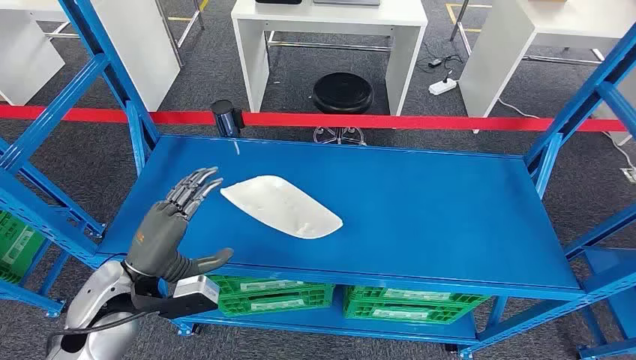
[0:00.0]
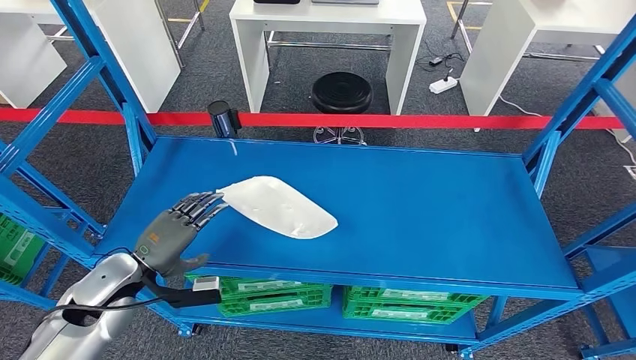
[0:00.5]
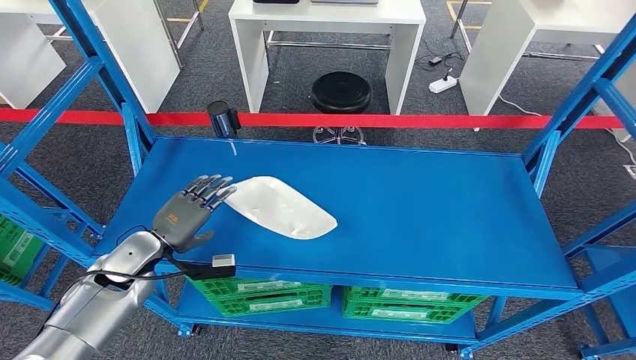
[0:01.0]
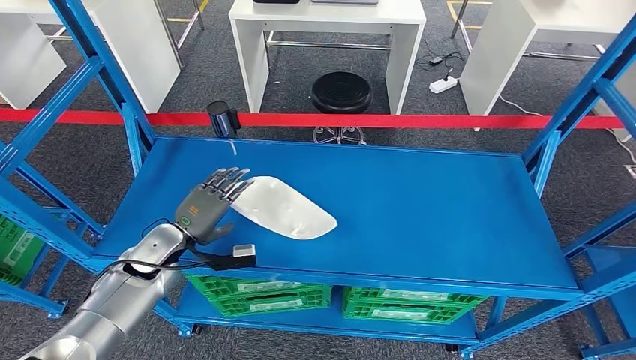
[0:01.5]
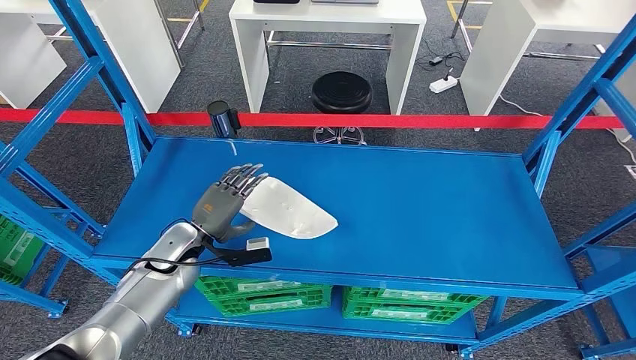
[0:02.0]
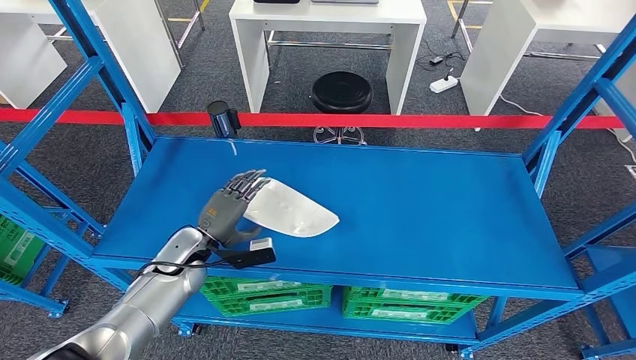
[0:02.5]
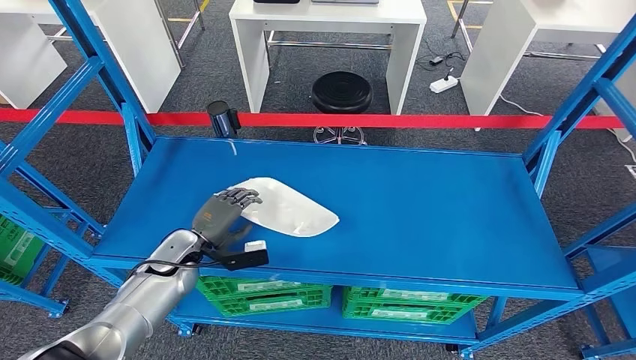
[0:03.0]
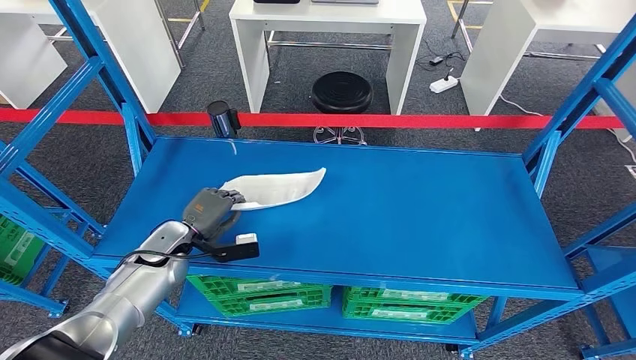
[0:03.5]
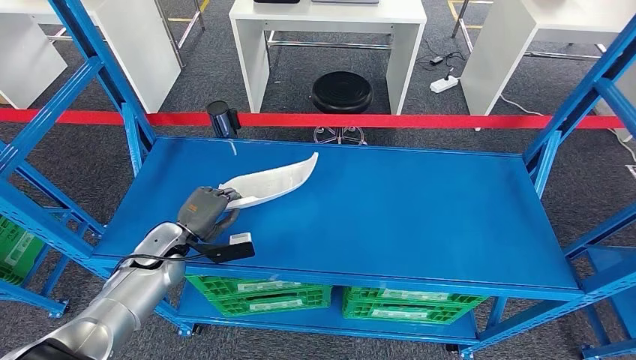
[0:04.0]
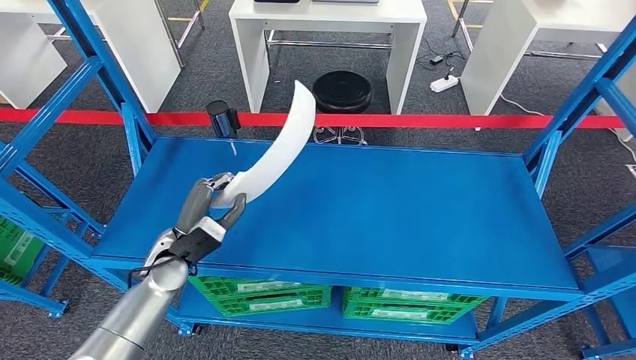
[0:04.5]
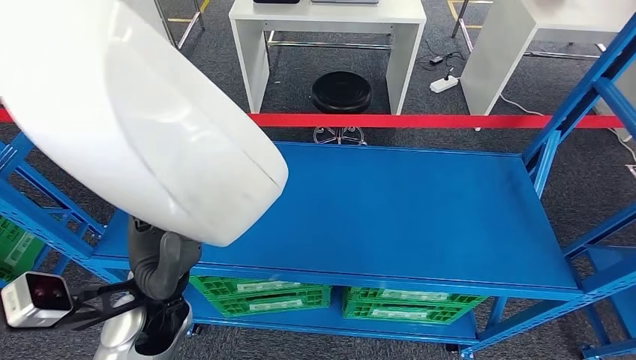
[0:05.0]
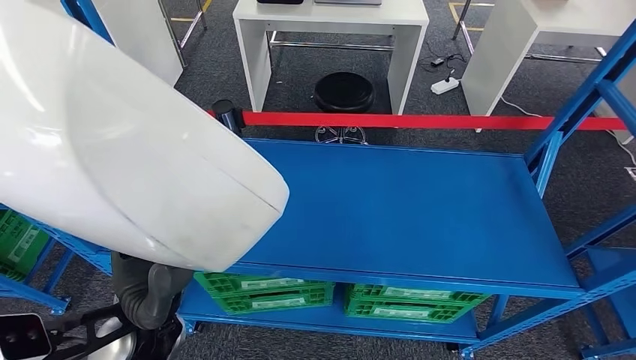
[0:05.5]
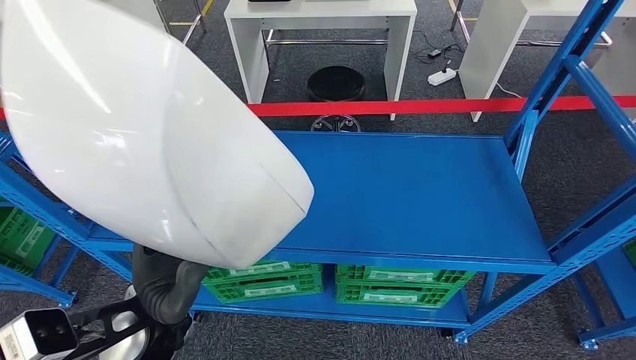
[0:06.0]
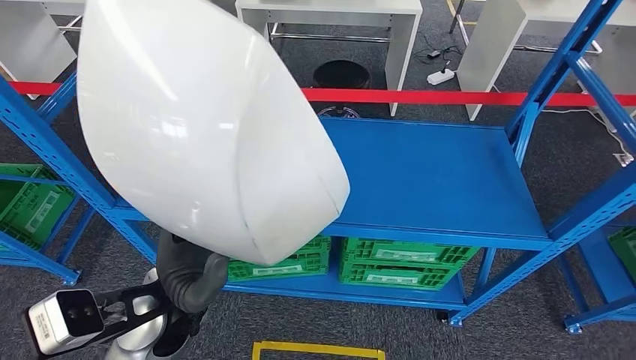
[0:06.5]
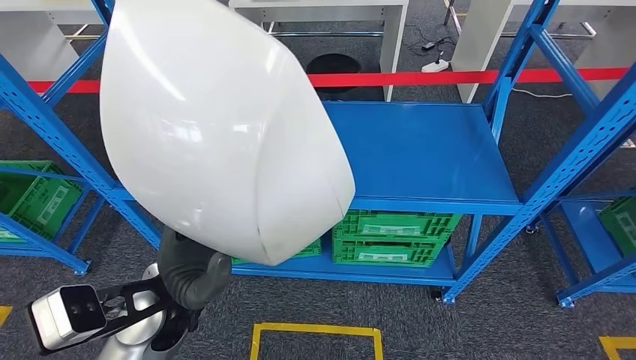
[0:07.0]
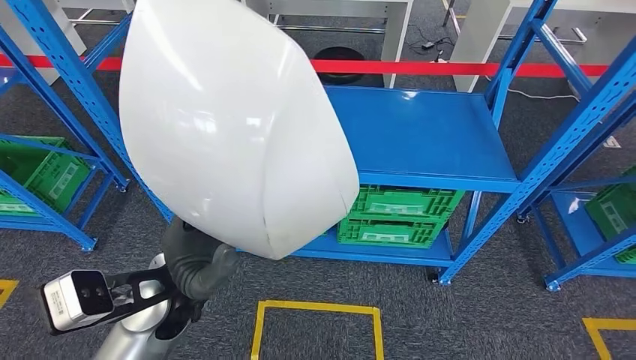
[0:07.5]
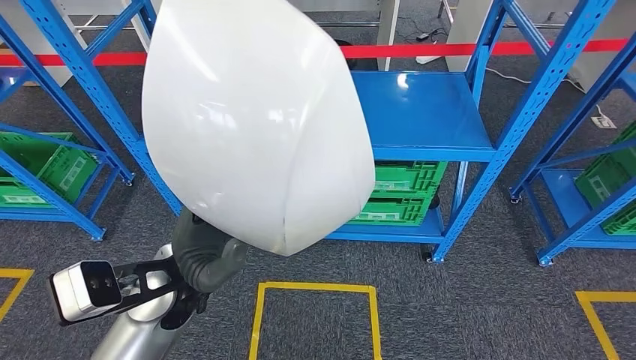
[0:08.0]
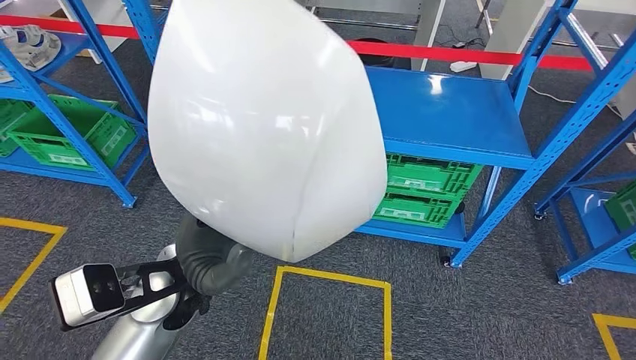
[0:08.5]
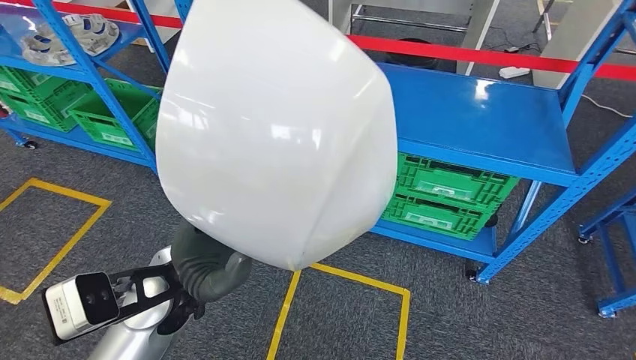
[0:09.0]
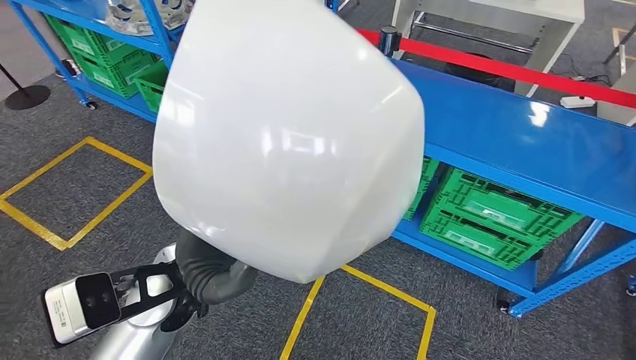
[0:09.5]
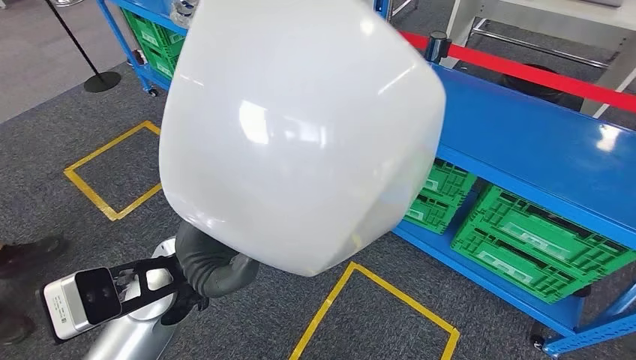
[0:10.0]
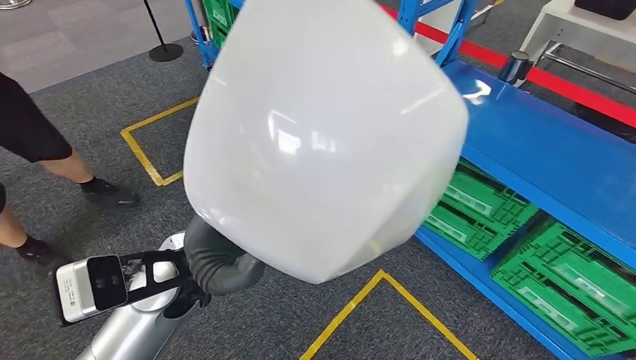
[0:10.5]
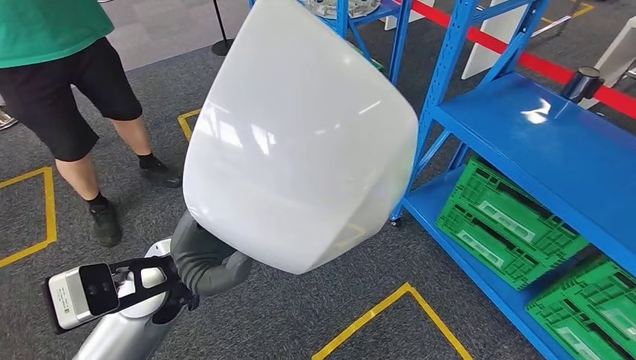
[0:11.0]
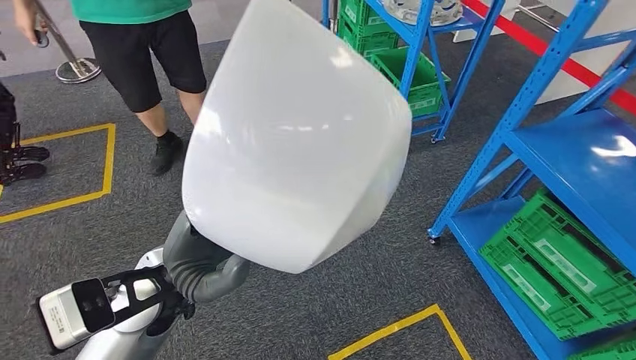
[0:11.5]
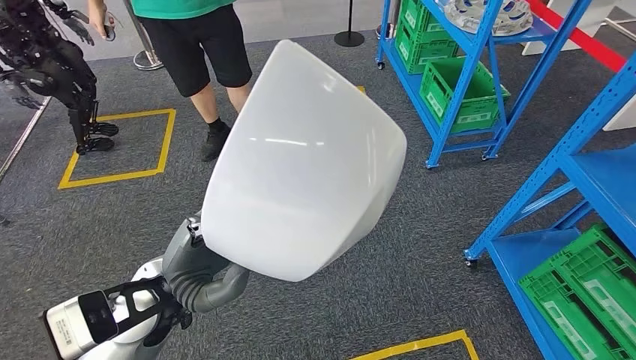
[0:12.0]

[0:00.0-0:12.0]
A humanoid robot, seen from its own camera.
Step, 0:00.0 to 0:05.0: Take small components from the rack.
0:02.0 to 0:04.0: The hands stay close to where they were, moving slightly.

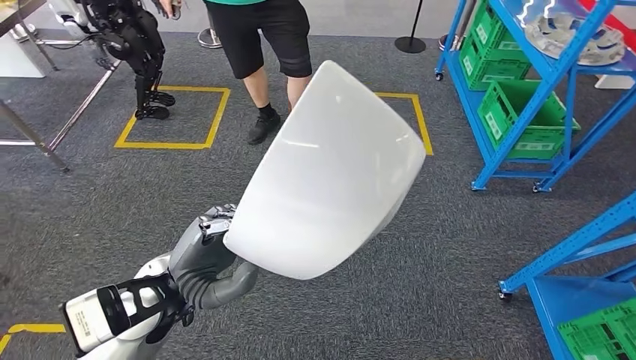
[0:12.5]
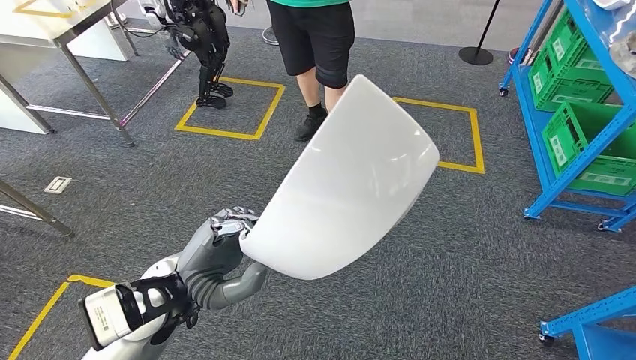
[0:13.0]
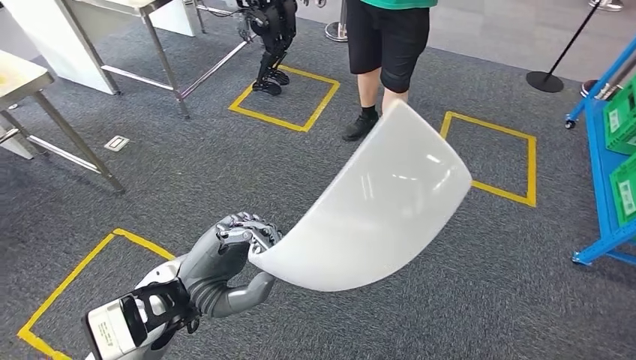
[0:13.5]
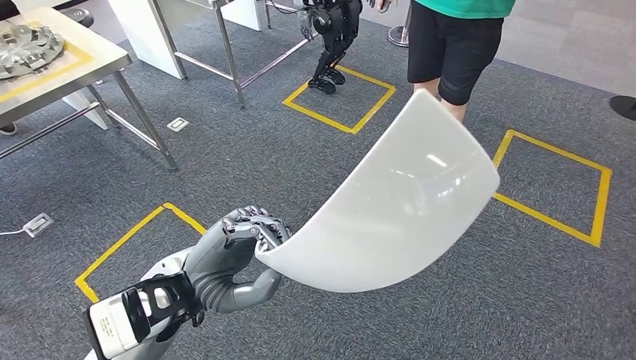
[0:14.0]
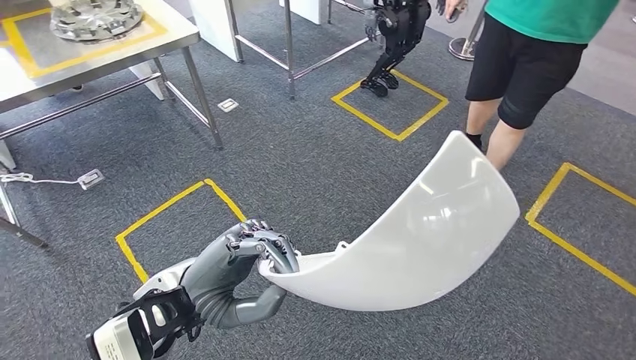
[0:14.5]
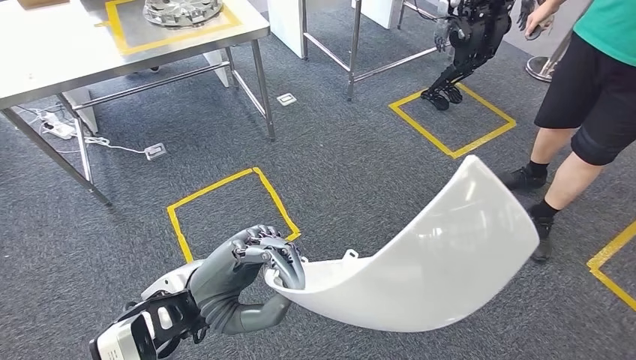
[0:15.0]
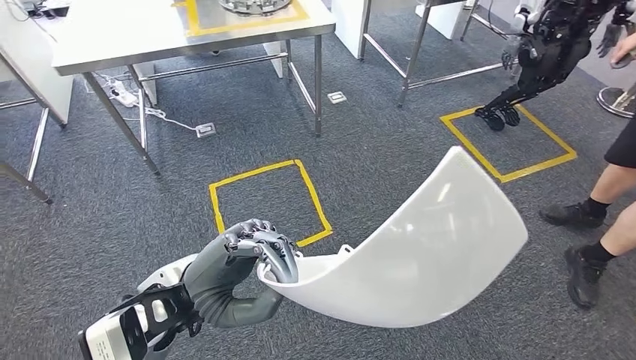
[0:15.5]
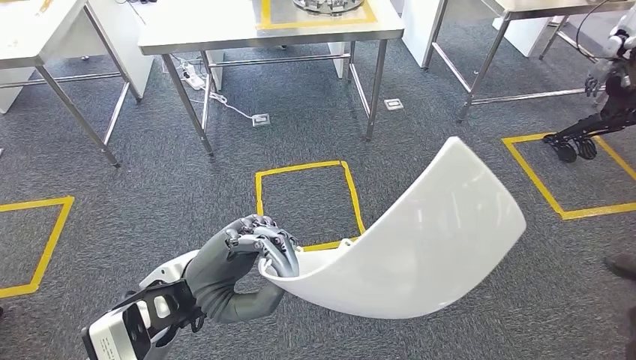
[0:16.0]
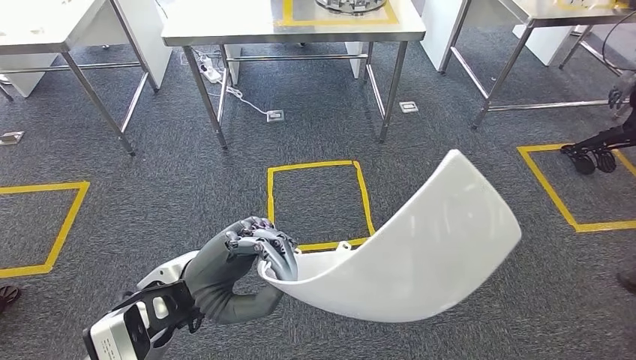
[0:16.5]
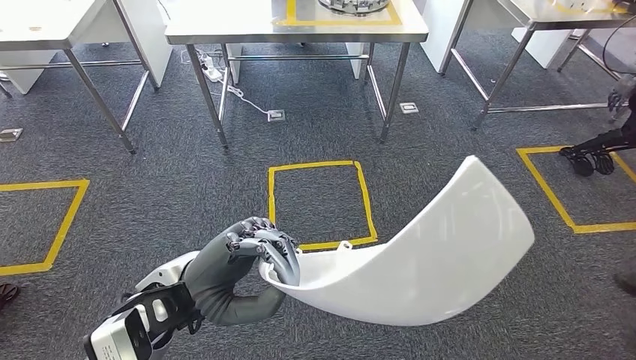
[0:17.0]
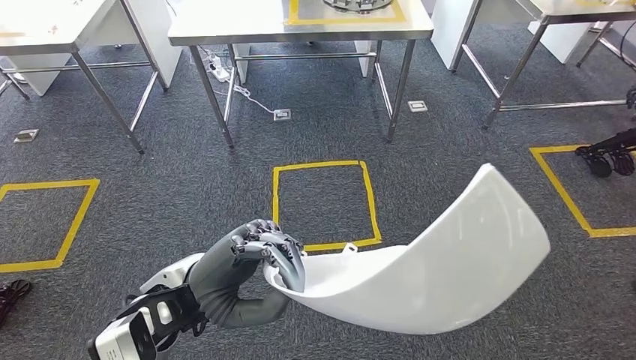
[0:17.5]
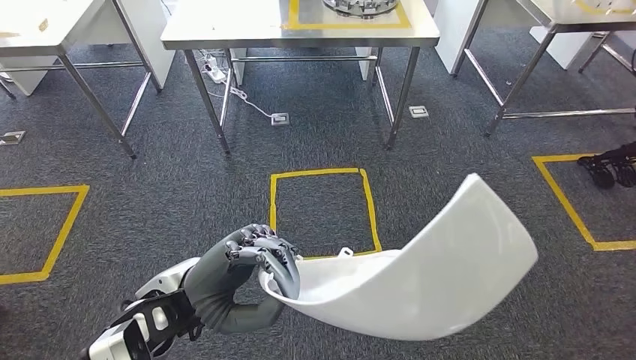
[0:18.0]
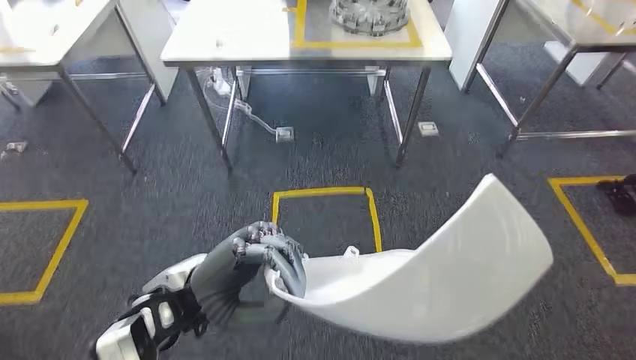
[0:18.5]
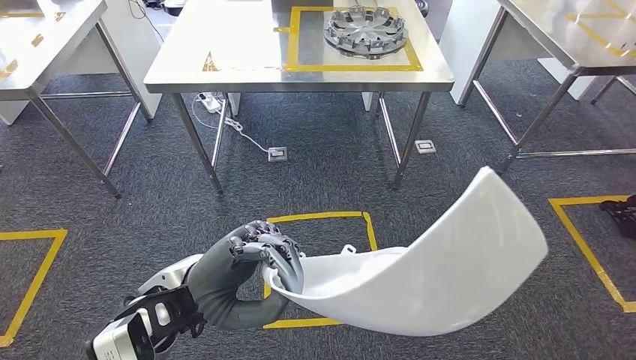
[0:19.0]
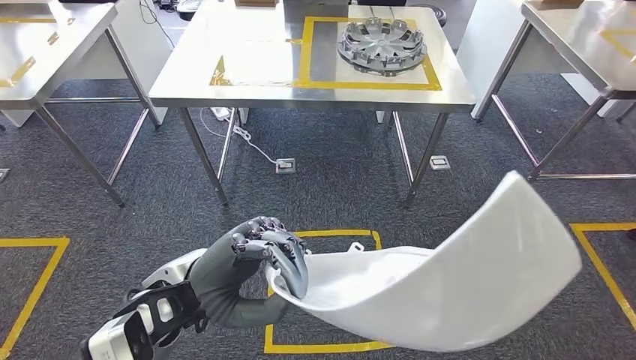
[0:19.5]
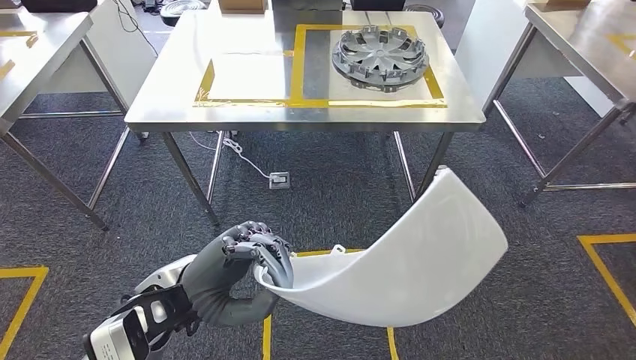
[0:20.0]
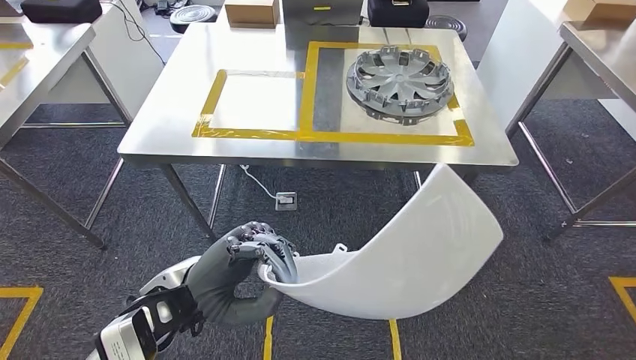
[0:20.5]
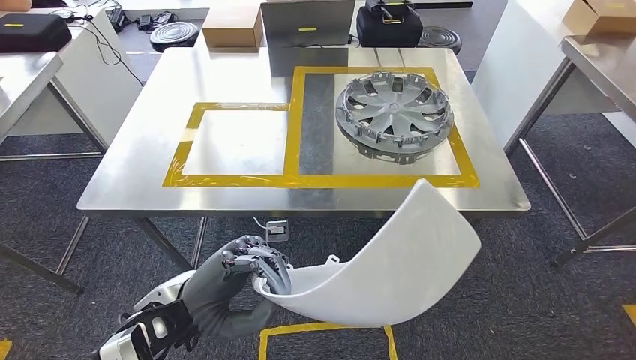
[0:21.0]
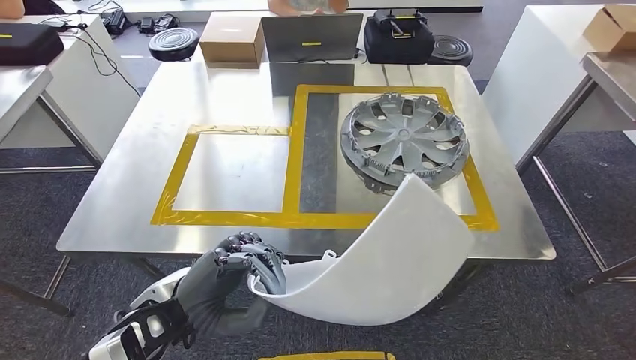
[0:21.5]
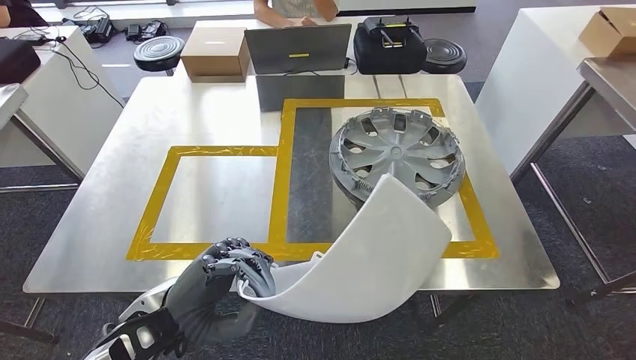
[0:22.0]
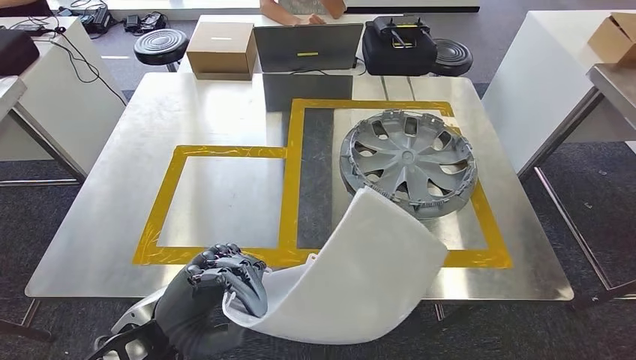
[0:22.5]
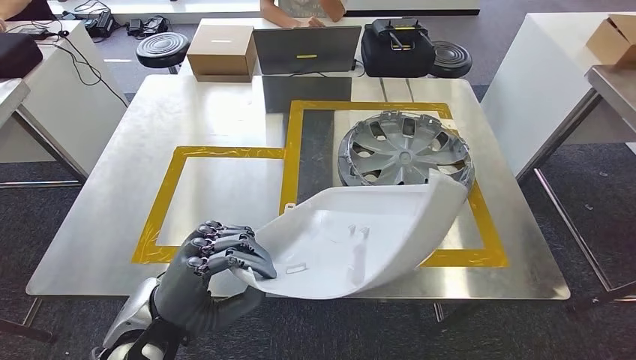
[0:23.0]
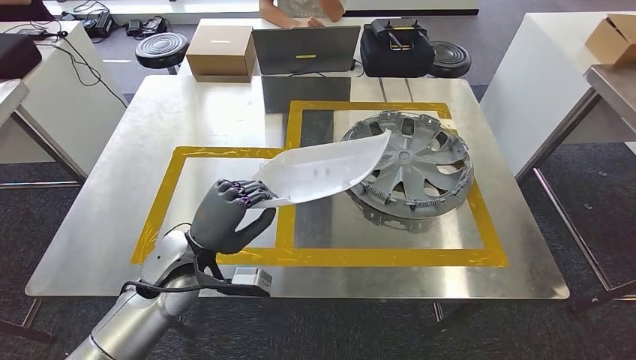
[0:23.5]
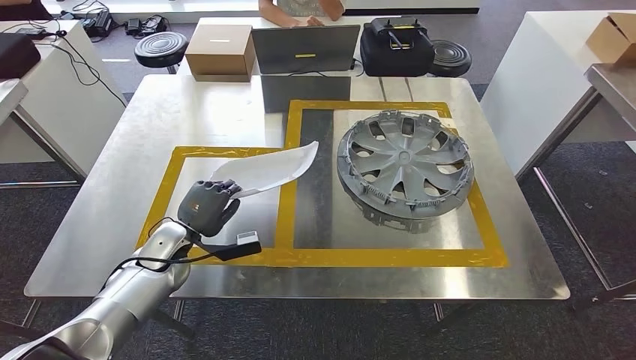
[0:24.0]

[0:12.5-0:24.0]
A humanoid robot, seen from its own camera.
Step, 0:12.5 to 0:22.5: Move the small parts to the workbench.
